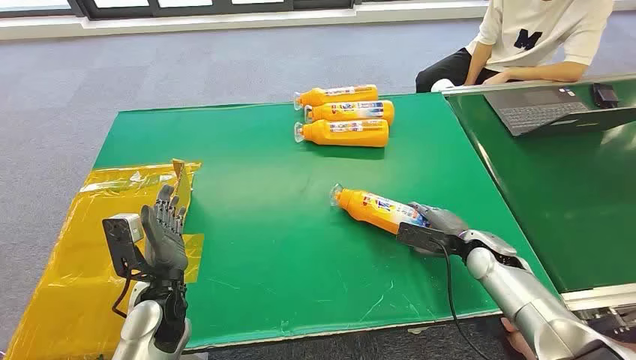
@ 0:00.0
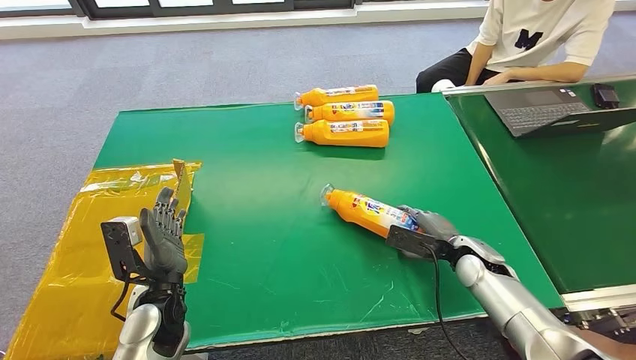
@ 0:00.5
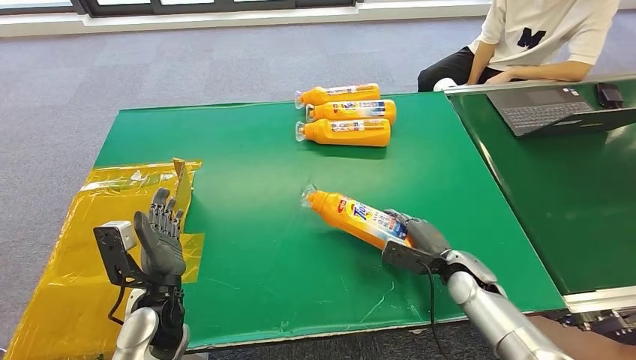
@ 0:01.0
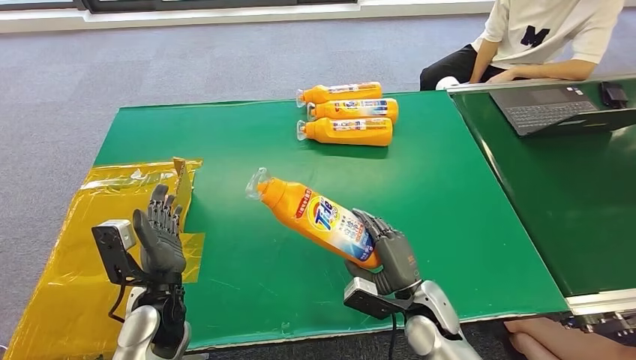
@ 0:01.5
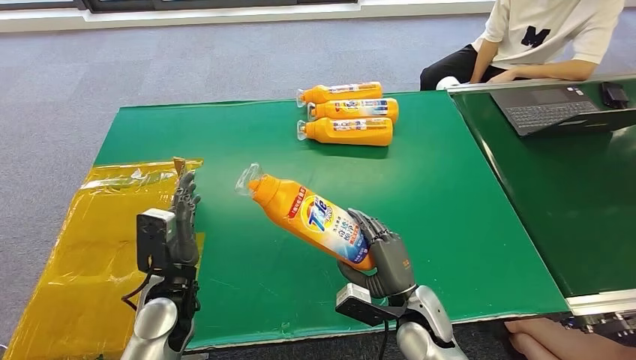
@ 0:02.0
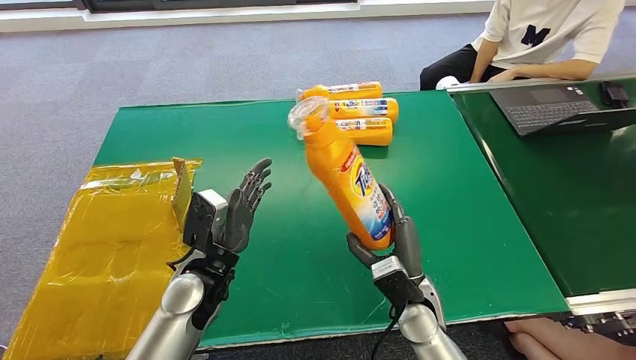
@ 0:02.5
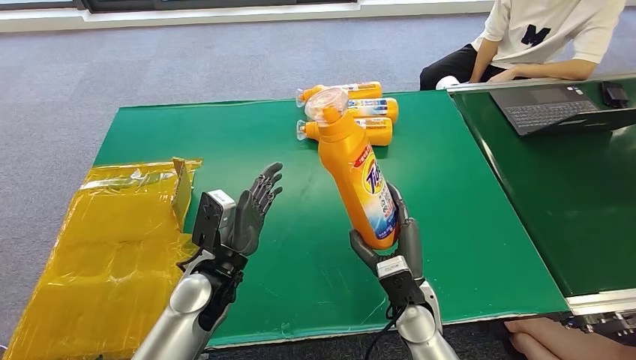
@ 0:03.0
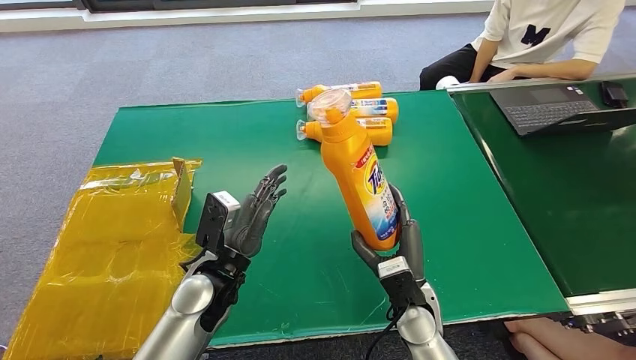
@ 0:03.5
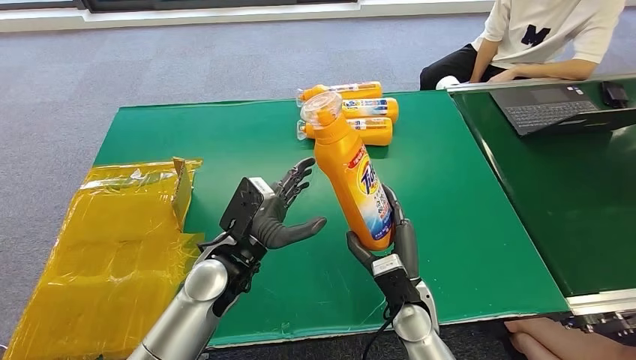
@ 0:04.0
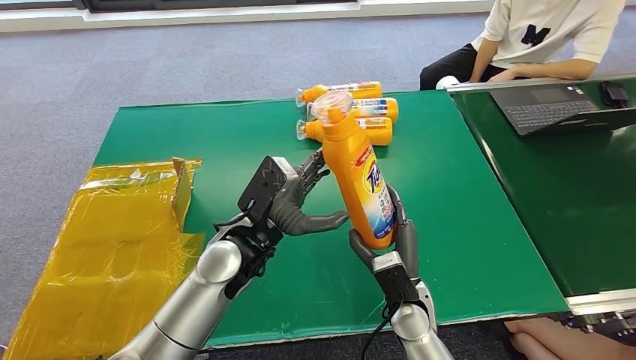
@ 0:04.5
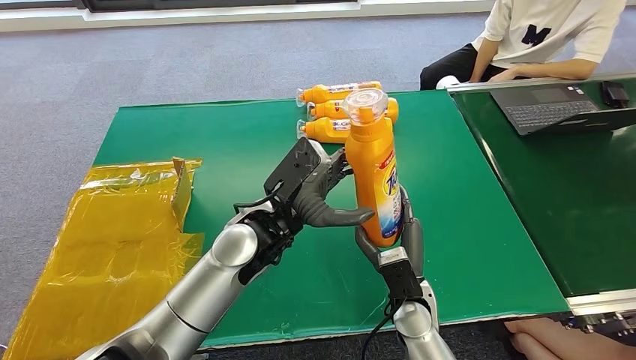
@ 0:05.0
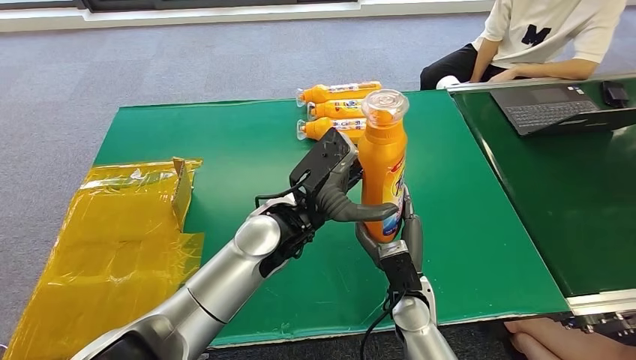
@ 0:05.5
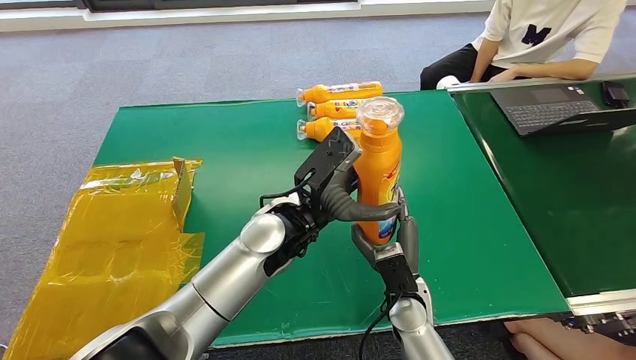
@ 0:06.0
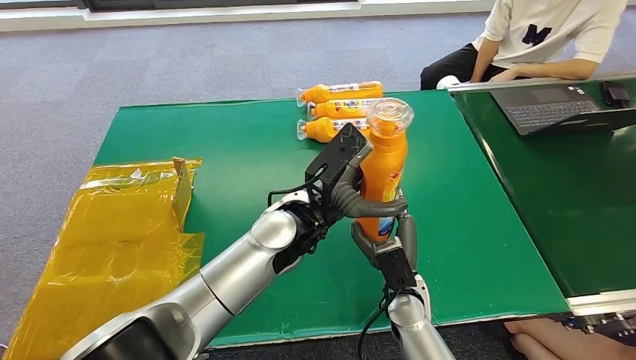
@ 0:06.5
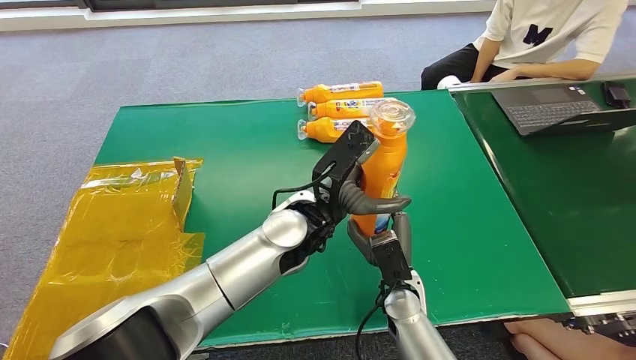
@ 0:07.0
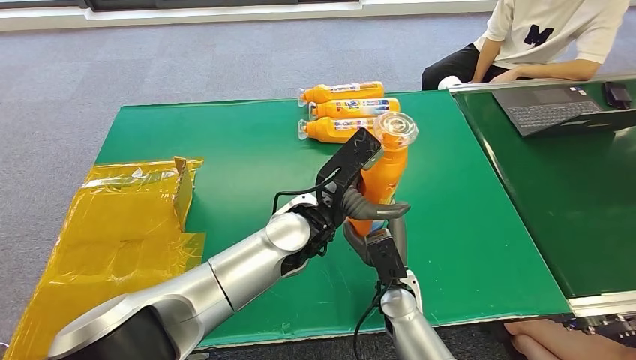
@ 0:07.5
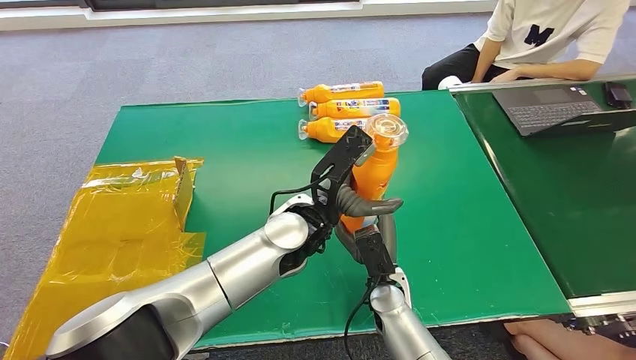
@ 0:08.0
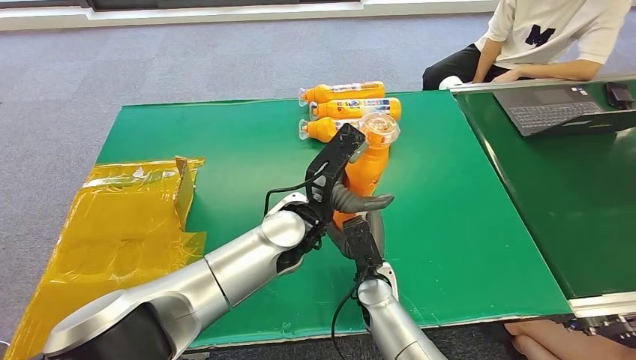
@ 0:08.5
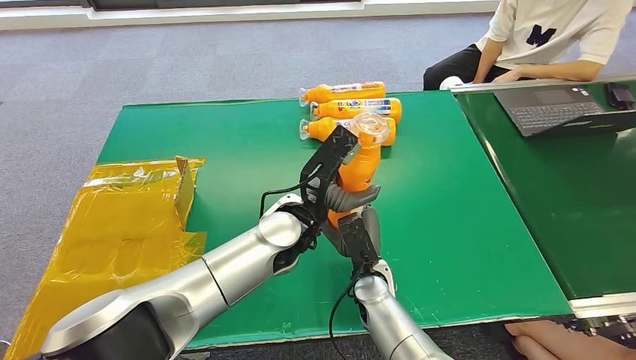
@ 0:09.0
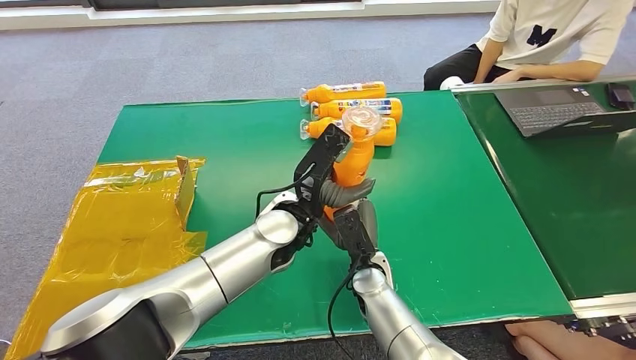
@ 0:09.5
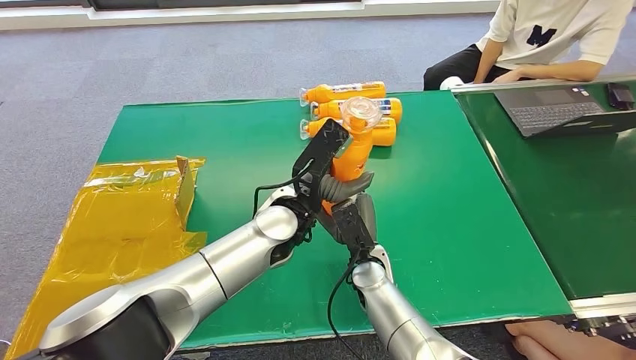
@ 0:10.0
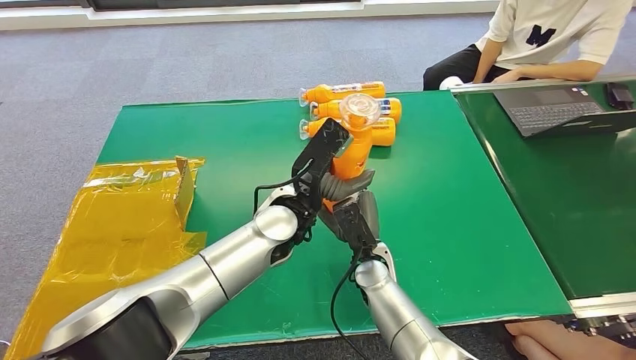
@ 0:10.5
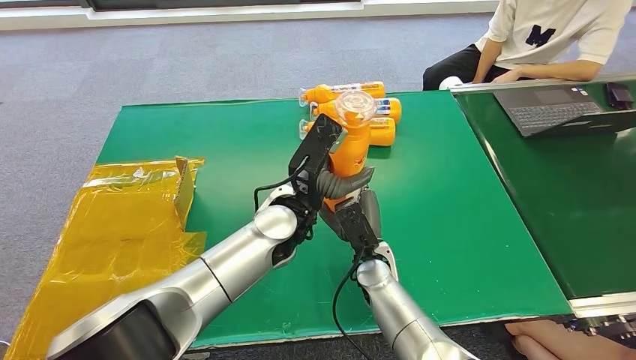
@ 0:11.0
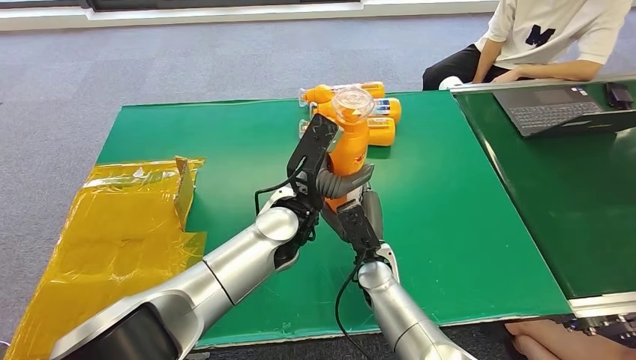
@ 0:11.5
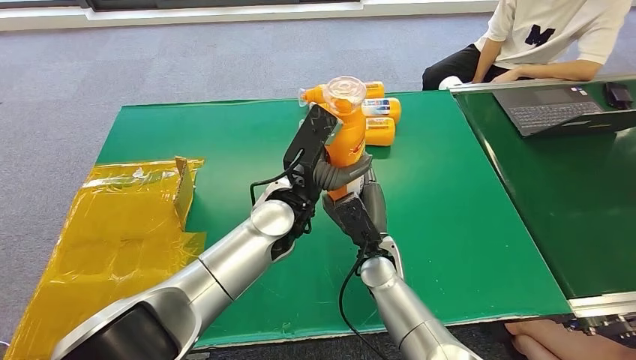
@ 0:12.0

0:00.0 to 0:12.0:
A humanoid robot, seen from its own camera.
Step, 0:00.0 to 0:01.5: Pick up the bottle from the table.
0:02.0 to 0:04.0: The left hand goes some 10 cm to the right and upward.
0:04.0 to 0:06.0: The left hand heads to the right and upward, covering about 10 cm.
0:06.0 to 0:08.0: The hands make only small movements.
0:08.0 to 0:10.0: The right hand shifts by about 5 cm.
0:10.0 to 0:12.0: The hands stay close to where they were, moving slightly.

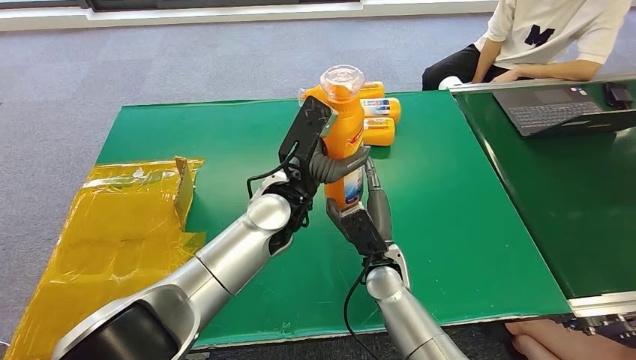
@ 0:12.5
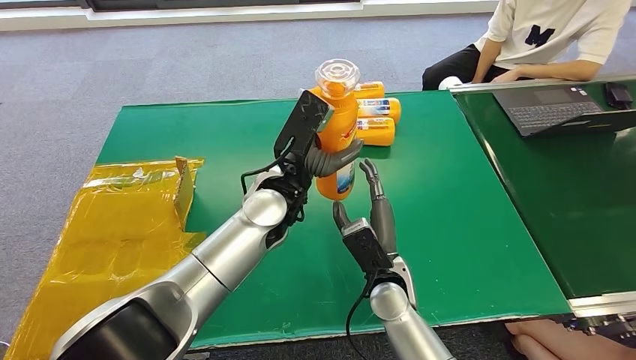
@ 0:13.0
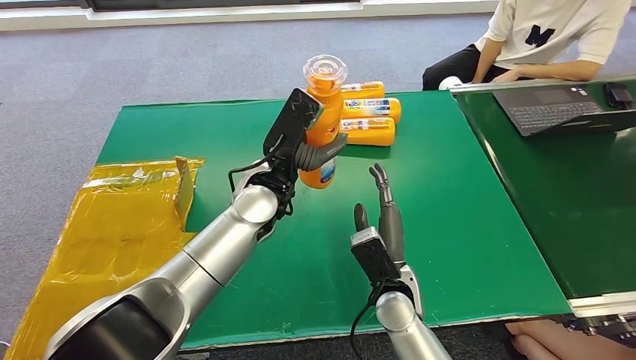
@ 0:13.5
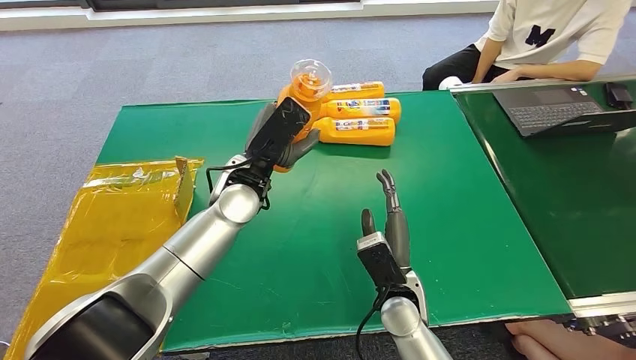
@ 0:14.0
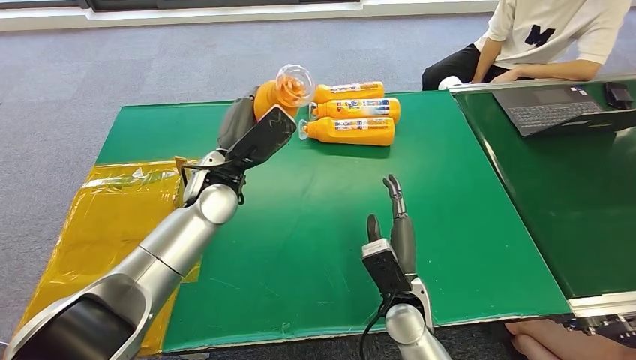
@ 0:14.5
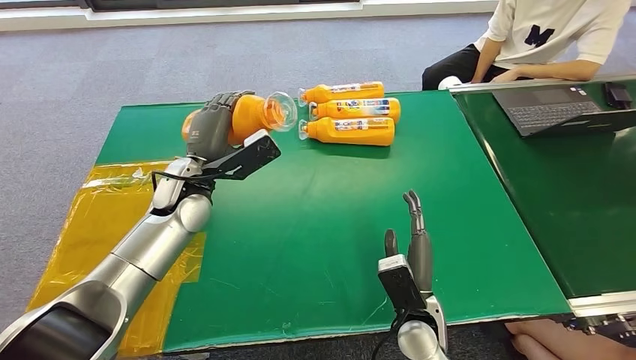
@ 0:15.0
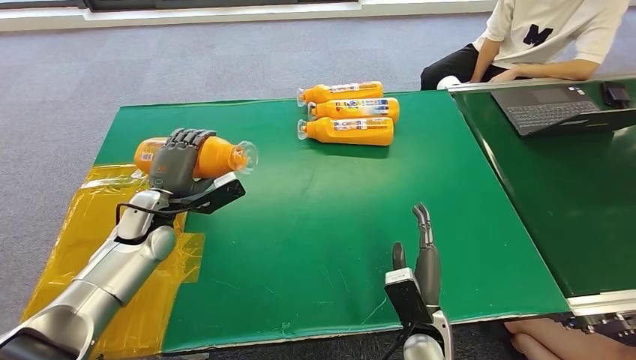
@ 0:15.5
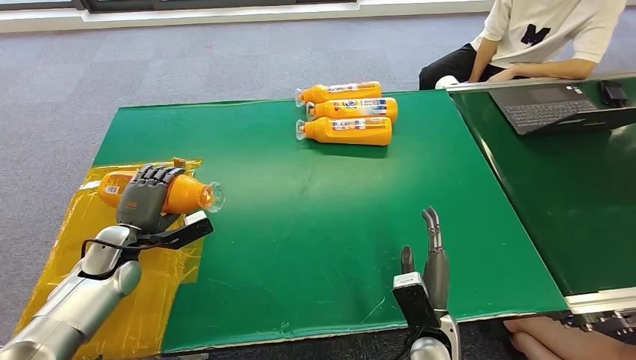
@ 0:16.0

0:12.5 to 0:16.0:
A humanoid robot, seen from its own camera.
Step, 0:12.5 to 0:16.0: Turn the bottle to the front side.
0:12.5 to 0:14.5: The right hand travels backward by some 5 cm; the left hand goes roughly 10 cm to the left.

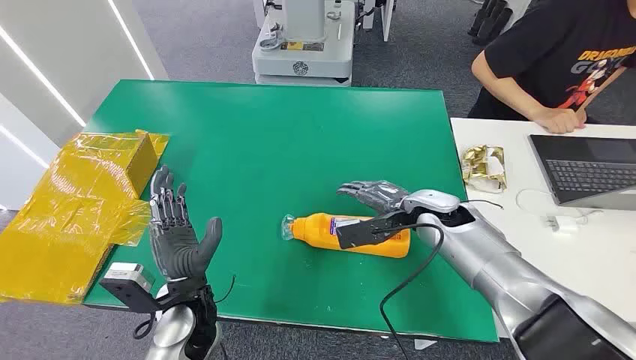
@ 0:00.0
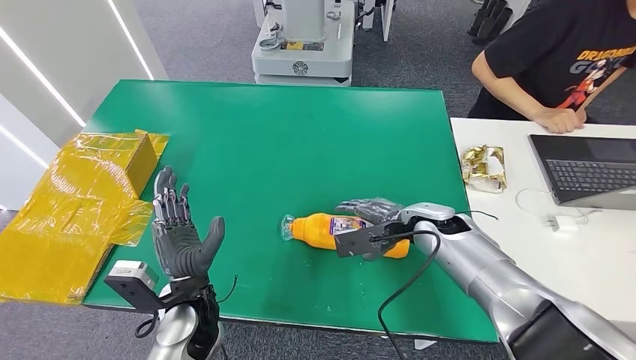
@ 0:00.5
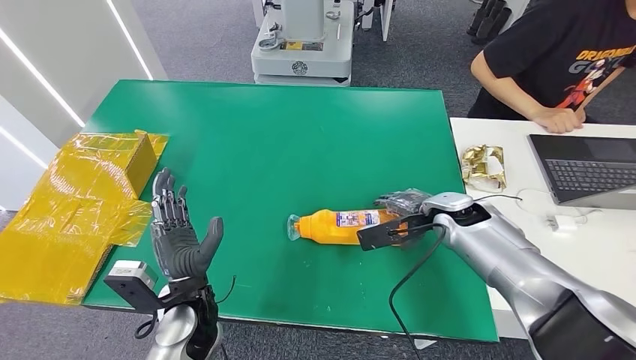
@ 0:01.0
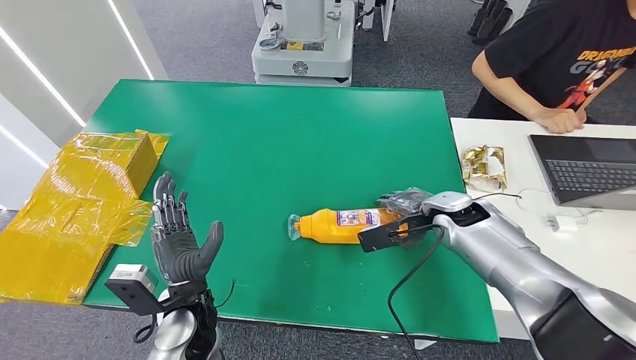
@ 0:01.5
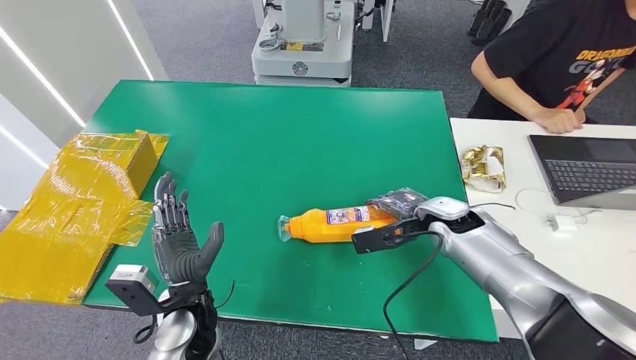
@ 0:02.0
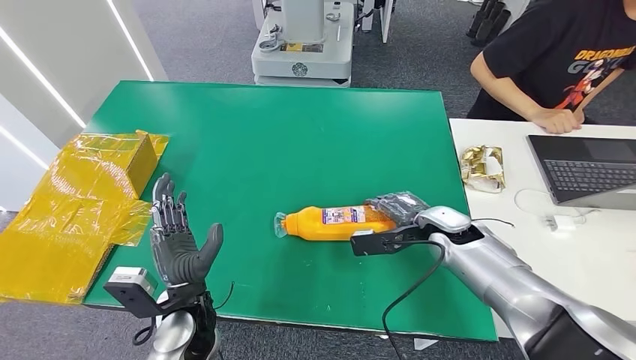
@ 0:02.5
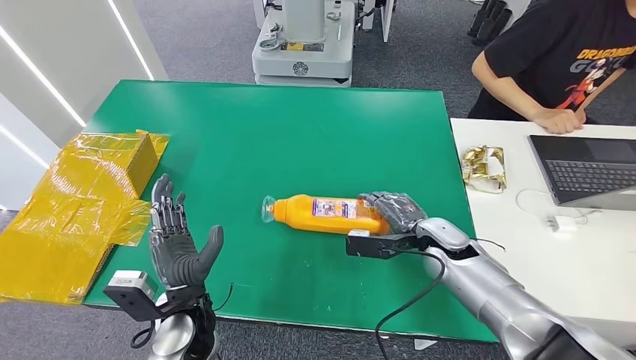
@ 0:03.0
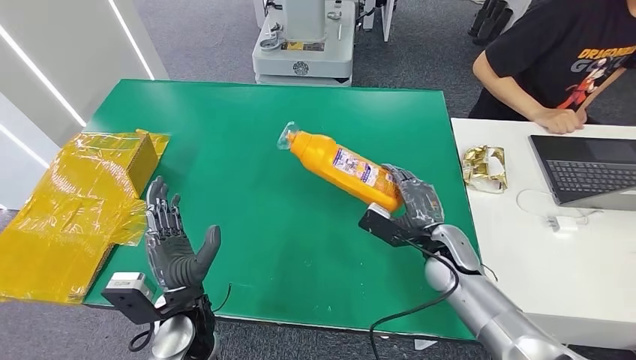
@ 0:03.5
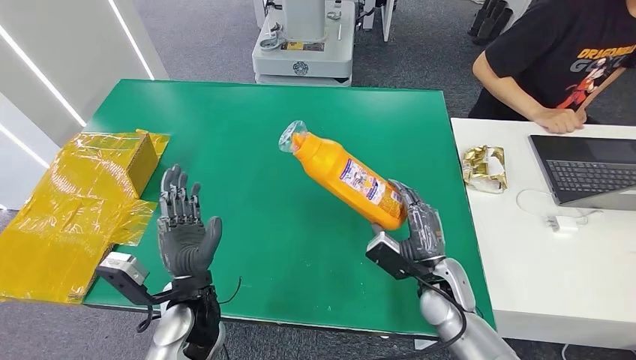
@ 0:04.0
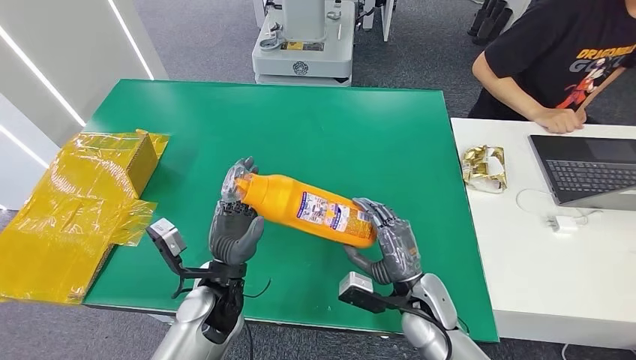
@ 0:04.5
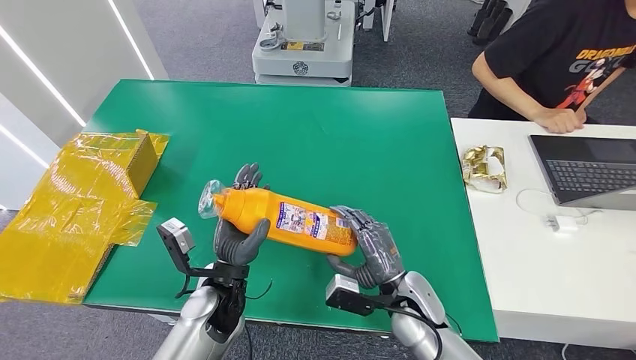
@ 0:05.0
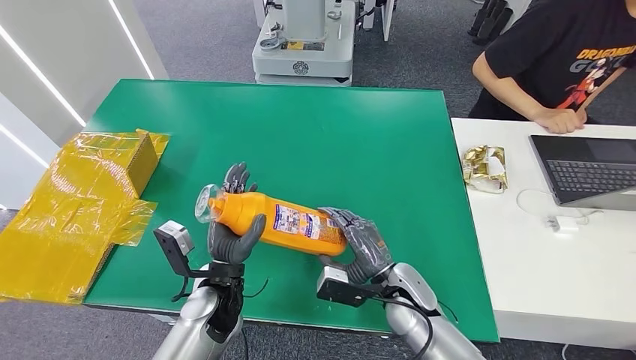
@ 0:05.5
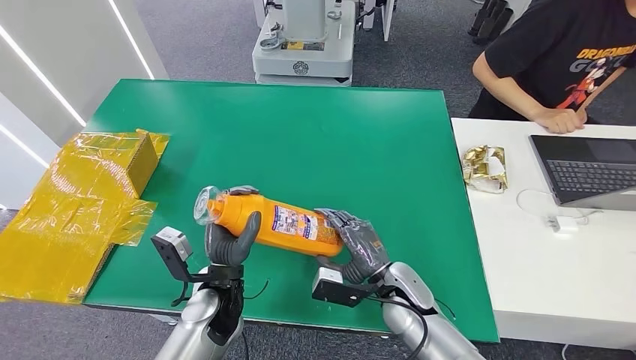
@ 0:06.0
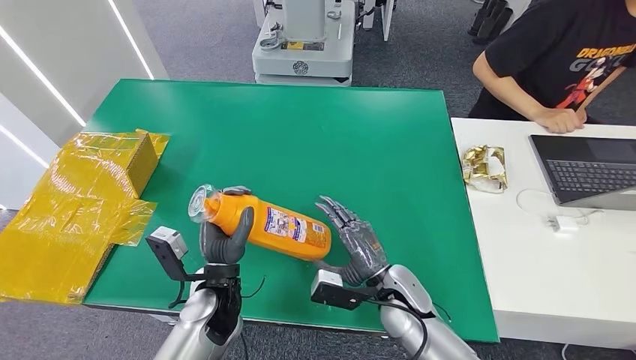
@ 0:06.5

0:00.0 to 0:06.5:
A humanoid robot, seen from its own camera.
Step, 0:00.0 to 0:05.5: Pick up the bottle from the table.
0:02.0 to 0:04.5: The right hand heads backward and downward, covering approximately 15 cm.
0:04.5 to 0:06.5: The hands move only a little.
